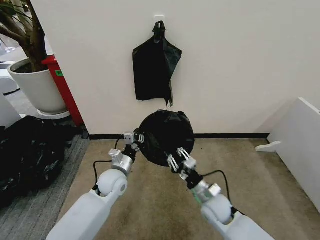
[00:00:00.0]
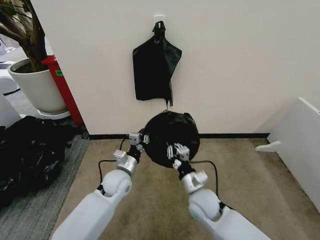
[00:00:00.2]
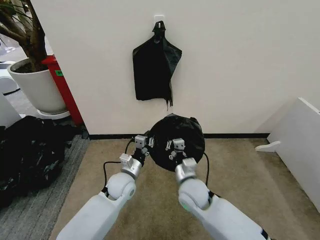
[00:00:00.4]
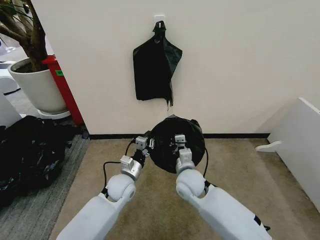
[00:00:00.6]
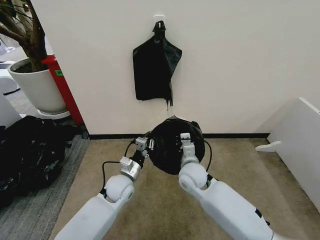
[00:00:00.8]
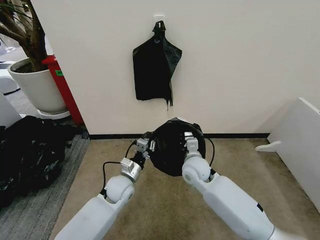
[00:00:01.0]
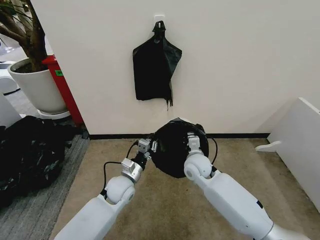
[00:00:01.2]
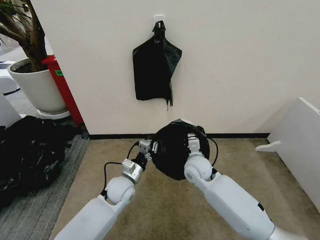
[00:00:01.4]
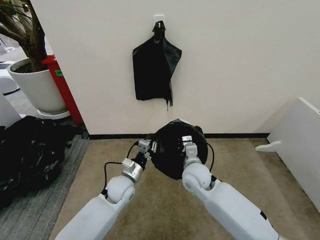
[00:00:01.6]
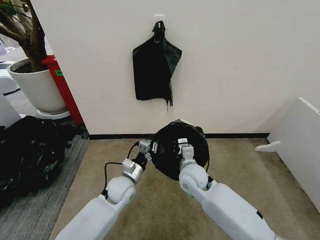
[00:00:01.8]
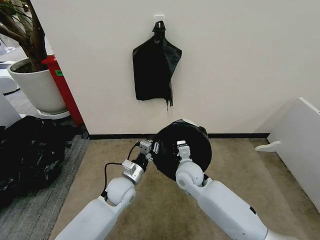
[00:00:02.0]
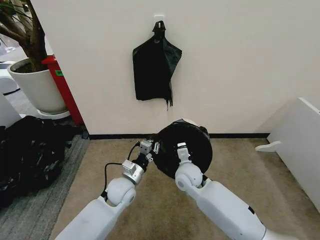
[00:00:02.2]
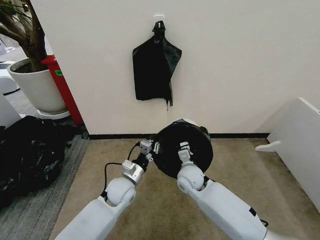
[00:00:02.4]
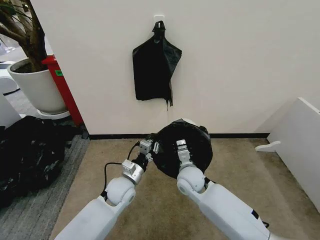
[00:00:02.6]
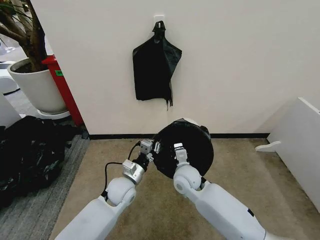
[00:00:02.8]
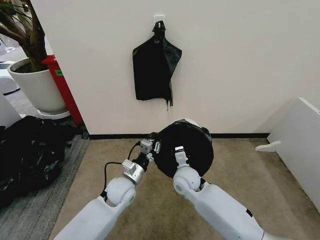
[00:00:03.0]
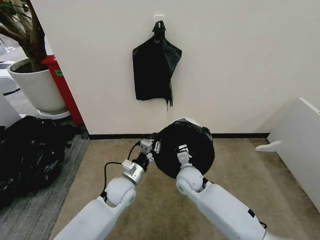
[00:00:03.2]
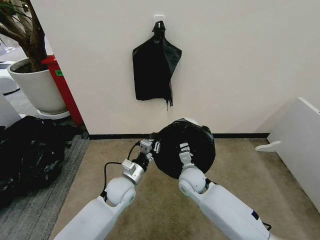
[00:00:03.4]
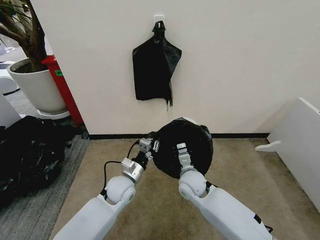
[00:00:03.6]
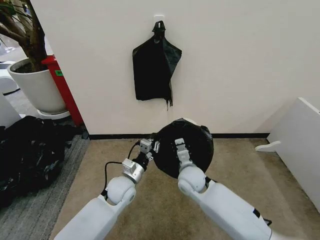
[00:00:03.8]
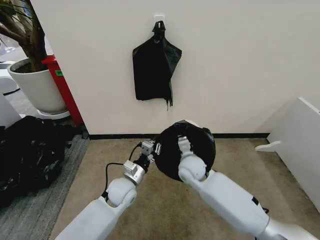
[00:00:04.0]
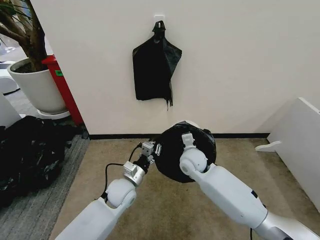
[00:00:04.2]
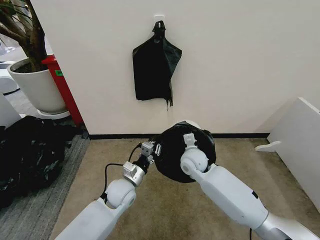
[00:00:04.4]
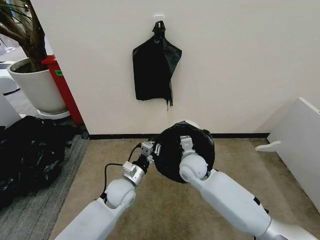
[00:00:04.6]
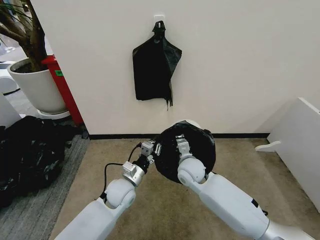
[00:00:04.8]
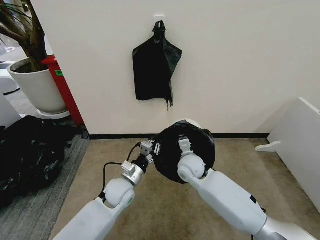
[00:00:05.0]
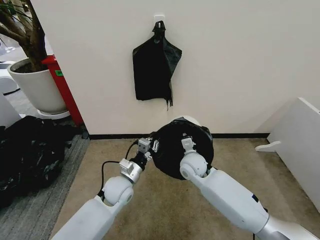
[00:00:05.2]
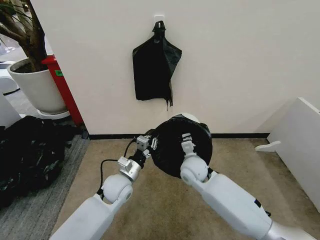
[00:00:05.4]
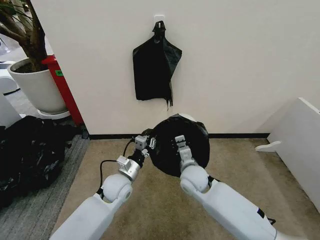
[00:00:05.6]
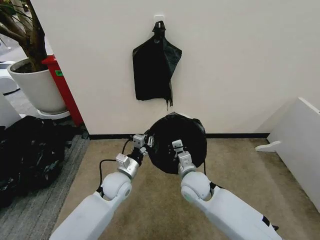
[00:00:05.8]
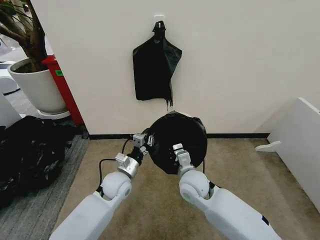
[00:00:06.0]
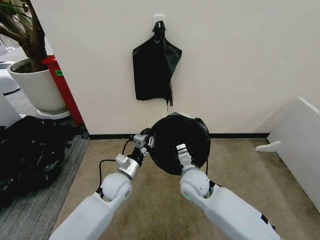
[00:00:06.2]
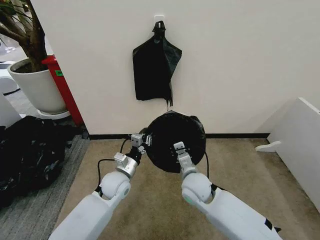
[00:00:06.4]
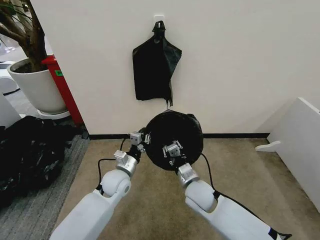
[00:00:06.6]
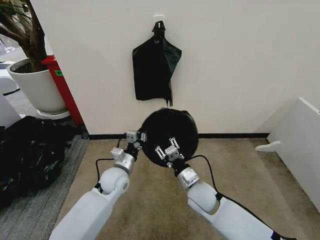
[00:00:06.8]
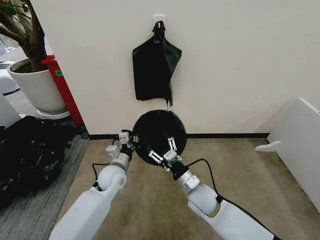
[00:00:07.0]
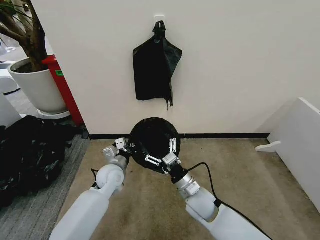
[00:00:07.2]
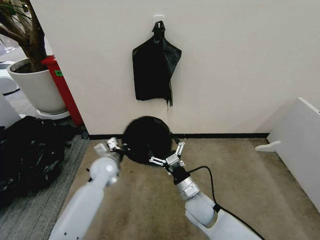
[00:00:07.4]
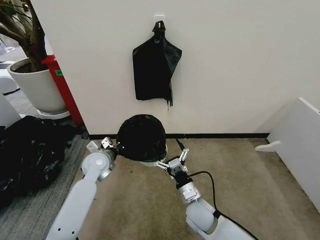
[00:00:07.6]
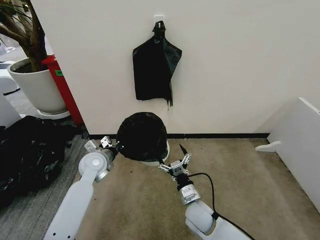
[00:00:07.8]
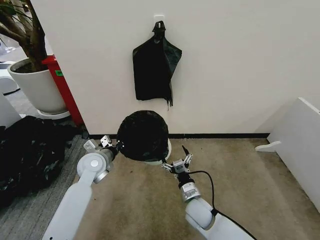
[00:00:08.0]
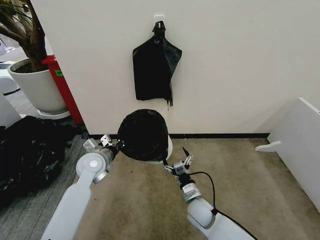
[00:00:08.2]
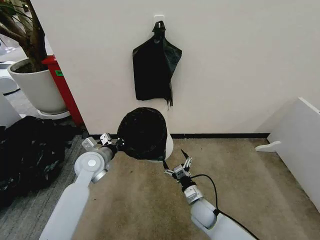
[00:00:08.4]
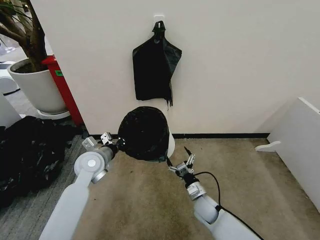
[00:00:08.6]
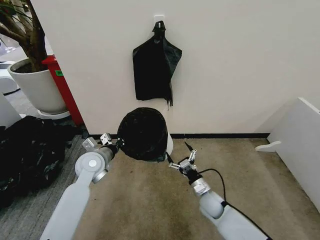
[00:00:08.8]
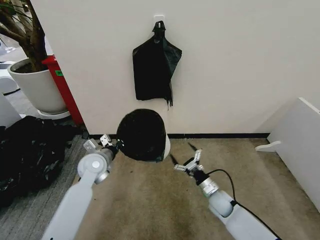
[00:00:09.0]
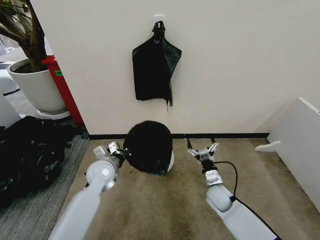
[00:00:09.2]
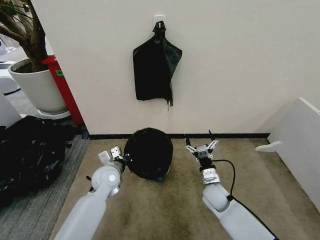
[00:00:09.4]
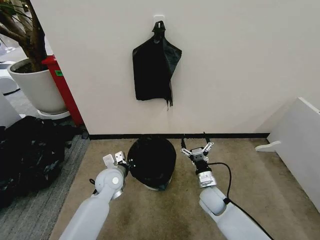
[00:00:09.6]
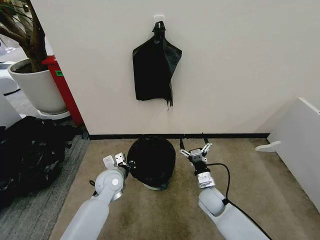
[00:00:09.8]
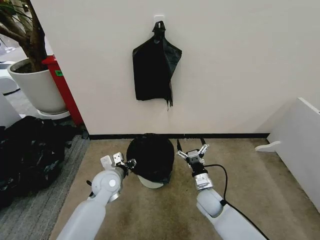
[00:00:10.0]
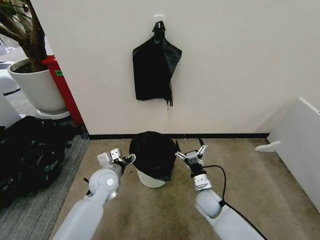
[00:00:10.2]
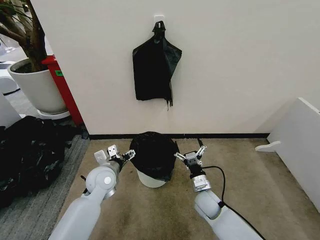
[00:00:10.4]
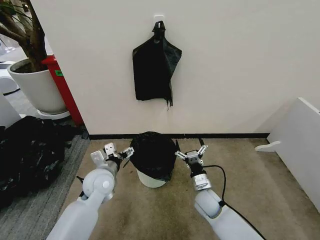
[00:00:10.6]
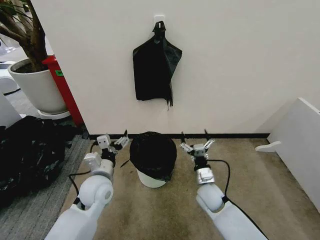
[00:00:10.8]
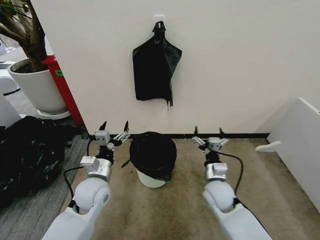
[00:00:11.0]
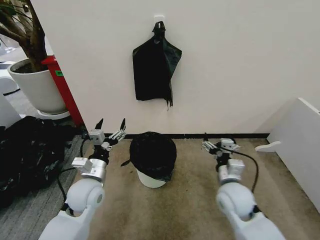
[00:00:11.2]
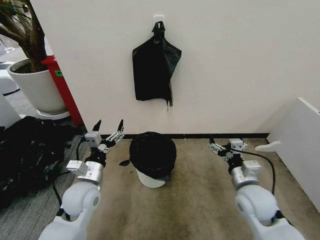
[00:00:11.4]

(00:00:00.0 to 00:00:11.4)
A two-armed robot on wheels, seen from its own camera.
Task of the whole recording: Place the garbage bag over the trash bin.
00:00:00.0 - 00:00:01.4: The right gripper goes roughly 15 cm forward, upward and to the left.
00:00:01.4 - 00:00:02.8: The right gripper moves about 5 cm.
00:00:02.8 - 00:00:04.2: The right gripper moves forward, about 5 cm.
00:00:04.2 - 00:00:05.6: The right gripper heads backward, covering about 5 cm.
00:00:05.6 - 00:00:07.2: The right gripper moves backward, approximately 5 cm, and opens.
00:00:07.2 - 00:00:08.6: The right gripper moves downward and to the right, roughly 15 cm. The left gripper goes some 10 cm upward and to the left.
00:00:08.6 - 00:00:10.0: The left gripper moves downward, approximately 5 cm, and opens up.
00:00:10.0 - 00:00:11.4: The right gripper goes about 15 cm upward and to the right. Meanwhile the left gripper heads backward and upward, covering roughly 10 cm, and opens up.
